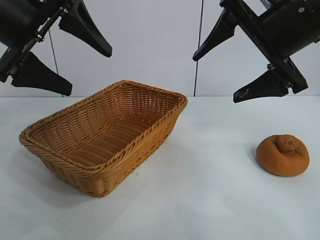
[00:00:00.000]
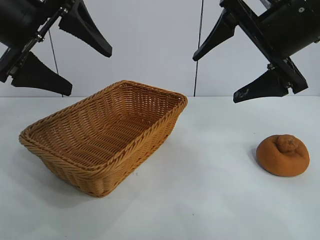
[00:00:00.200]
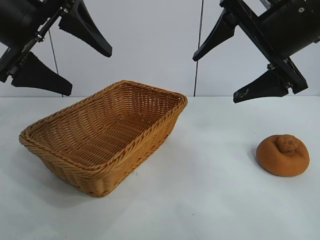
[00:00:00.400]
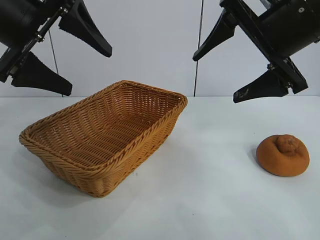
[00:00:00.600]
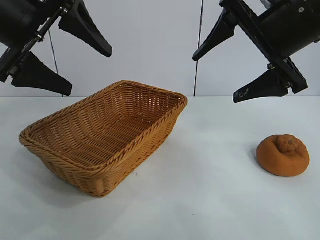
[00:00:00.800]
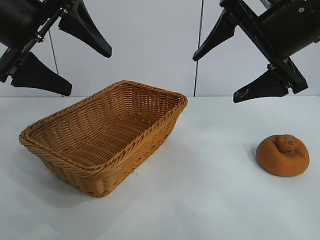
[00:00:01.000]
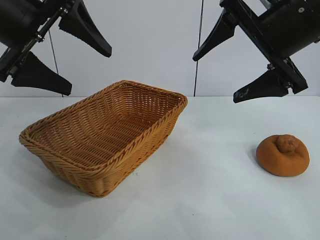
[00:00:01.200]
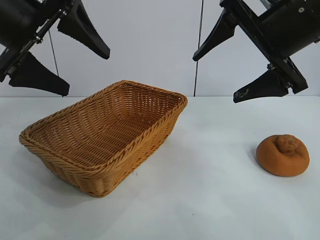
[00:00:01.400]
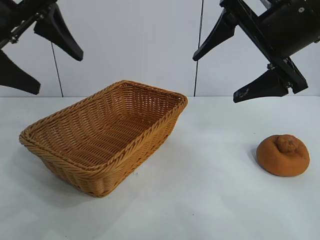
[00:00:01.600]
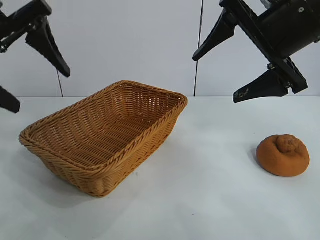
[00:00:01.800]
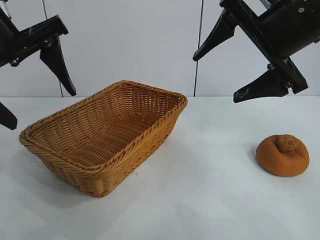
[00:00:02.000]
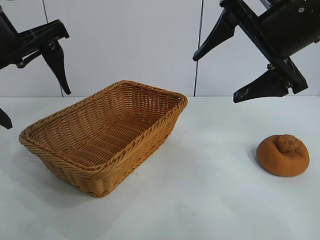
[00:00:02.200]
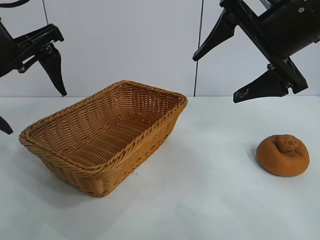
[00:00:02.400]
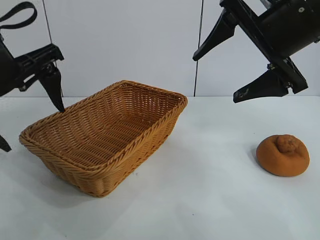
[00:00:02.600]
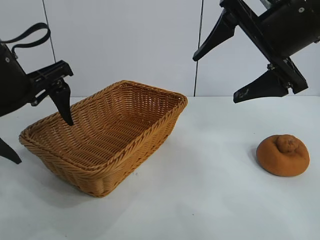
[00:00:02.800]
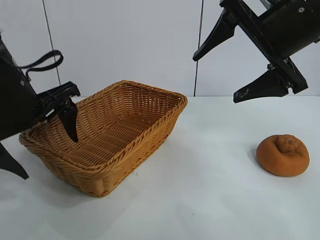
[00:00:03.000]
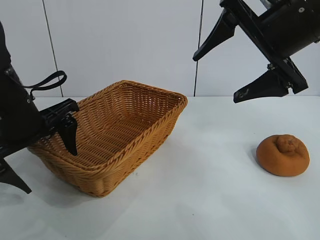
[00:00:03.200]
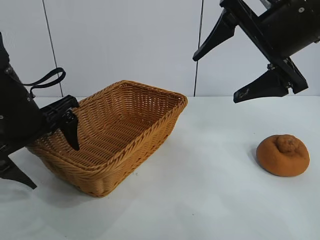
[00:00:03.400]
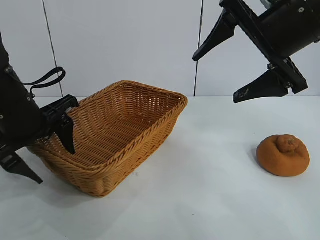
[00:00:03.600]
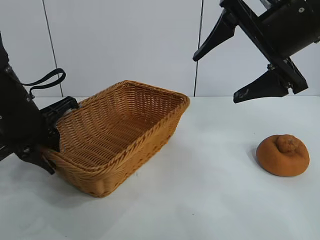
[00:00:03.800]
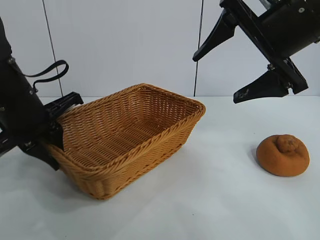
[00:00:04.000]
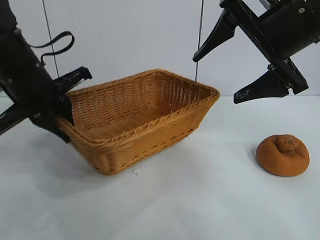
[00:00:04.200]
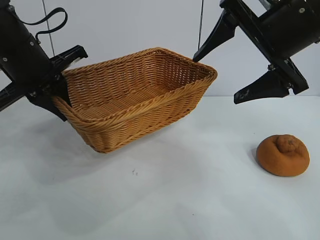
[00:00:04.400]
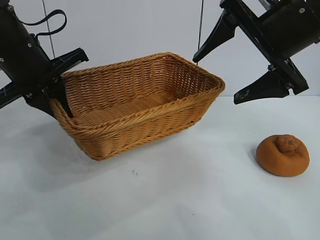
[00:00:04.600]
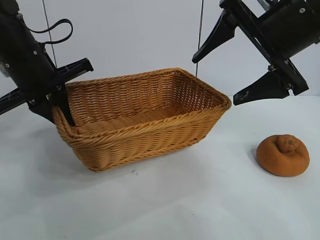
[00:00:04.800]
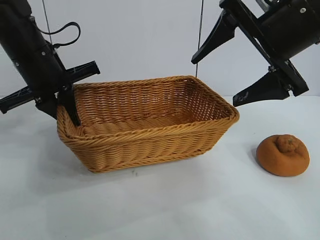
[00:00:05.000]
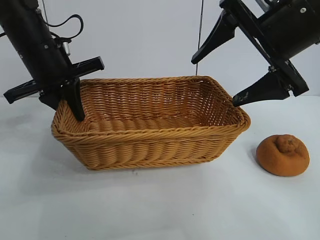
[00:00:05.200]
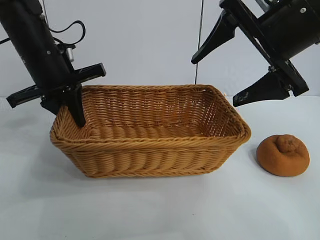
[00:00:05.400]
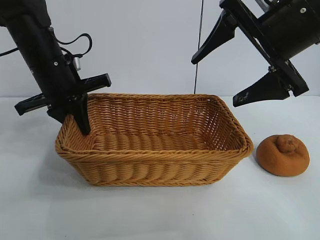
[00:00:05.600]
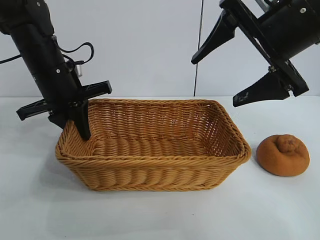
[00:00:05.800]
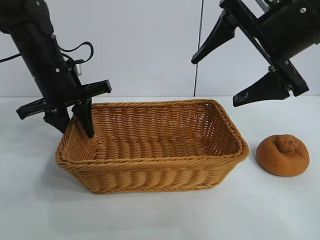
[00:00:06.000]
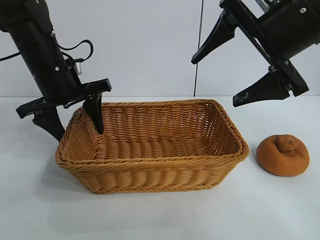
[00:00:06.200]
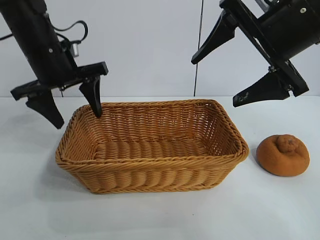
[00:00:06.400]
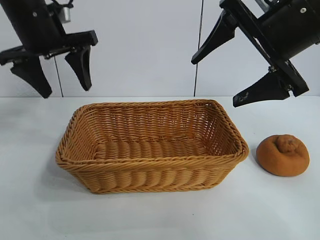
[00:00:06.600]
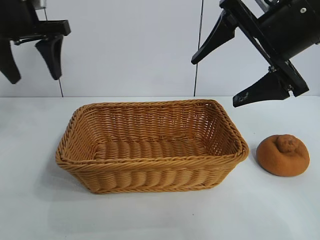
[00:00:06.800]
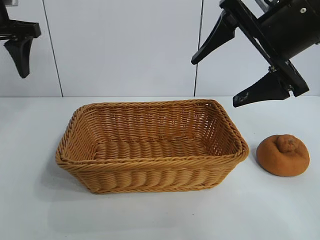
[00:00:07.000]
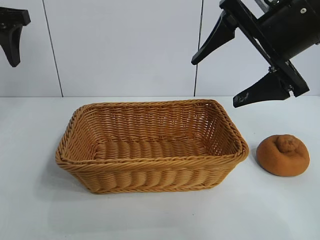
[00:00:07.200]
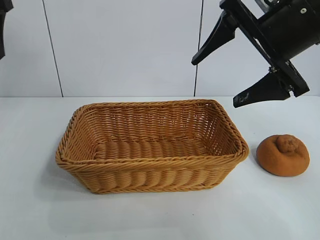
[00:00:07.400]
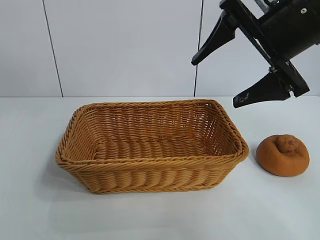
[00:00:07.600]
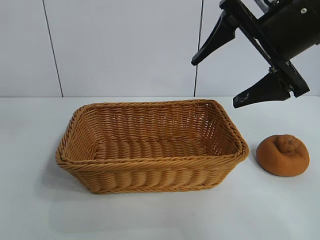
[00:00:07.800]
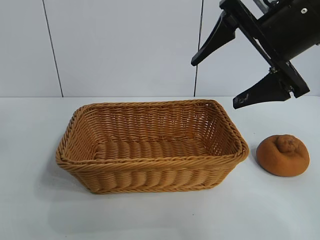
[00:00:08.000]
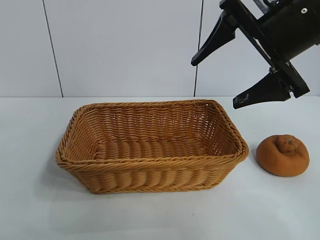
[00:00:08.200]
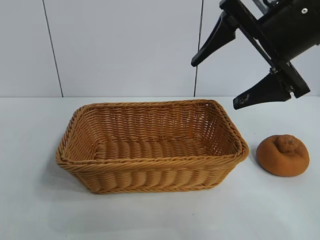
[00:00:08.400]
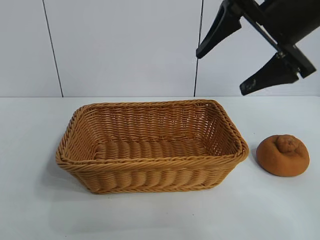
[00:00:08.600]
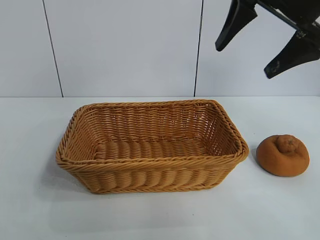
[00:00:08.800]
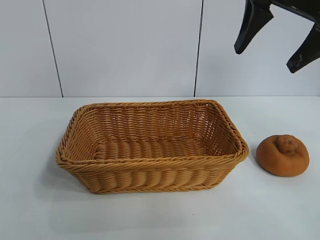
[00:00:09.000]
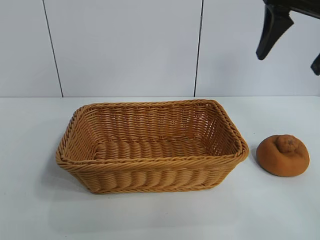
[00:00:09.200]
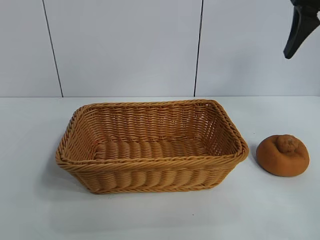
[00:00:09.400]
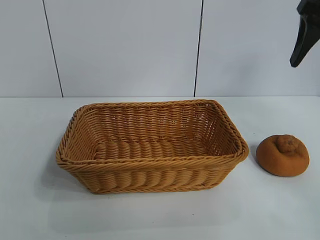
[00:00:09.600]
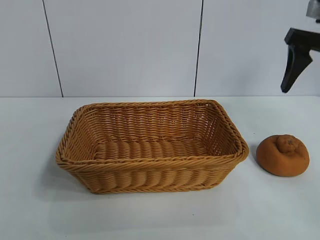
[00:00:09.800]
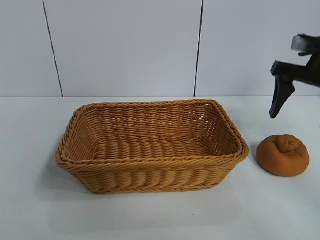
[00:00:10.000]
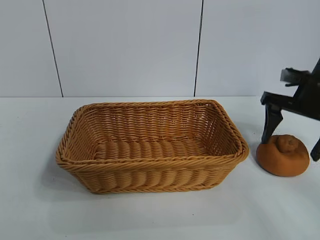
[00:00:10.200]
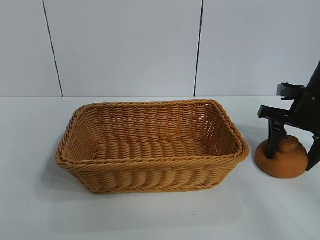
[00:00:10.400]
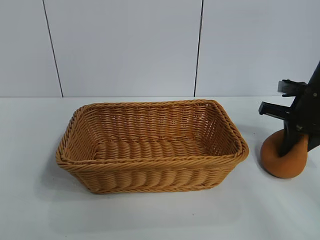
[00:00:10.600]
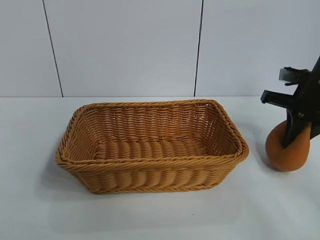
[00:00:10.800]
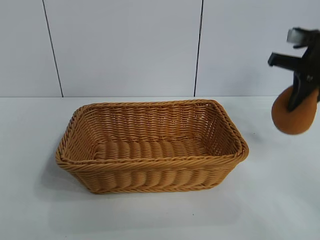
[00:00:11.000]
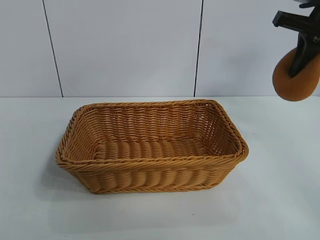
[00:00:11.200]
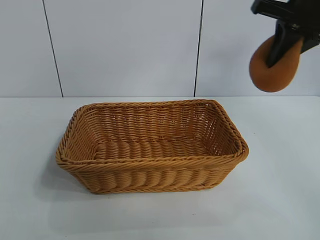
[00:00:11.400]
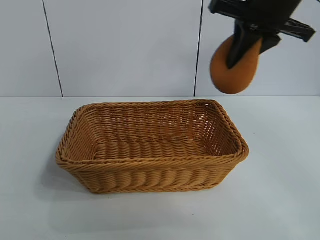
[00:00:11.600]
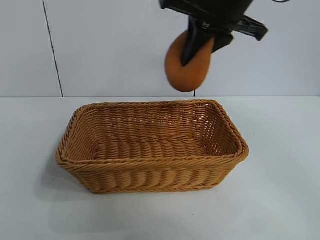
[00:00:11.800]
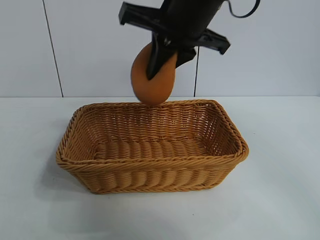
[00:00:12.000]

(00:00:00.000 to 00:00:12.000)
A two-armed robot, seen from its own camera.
Task of the whole recording: pick up the orange and put it into the basket.
Step, 00:00:01.200 - 00:00:03.800: Grasp the basket with left gripper.
Step, 00:00:04.000 - 00:00:06.200: Place the basket in the center of view with left gripper.
Step, 00:00:06.400 - 00:00:10.600: Grasp the orange with right gripper.

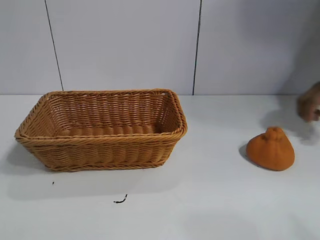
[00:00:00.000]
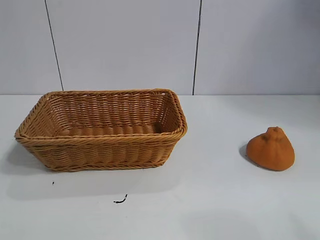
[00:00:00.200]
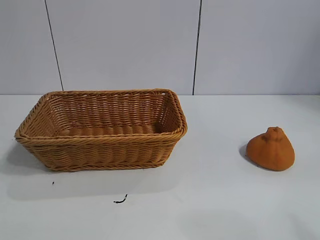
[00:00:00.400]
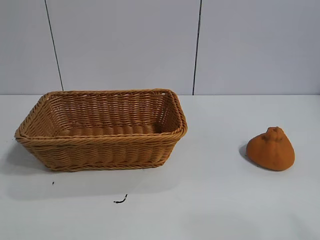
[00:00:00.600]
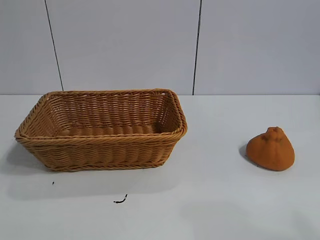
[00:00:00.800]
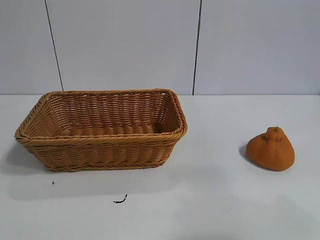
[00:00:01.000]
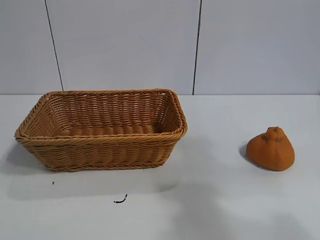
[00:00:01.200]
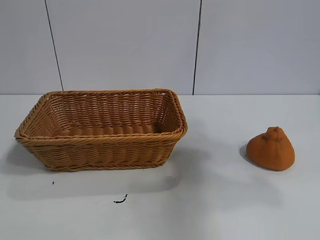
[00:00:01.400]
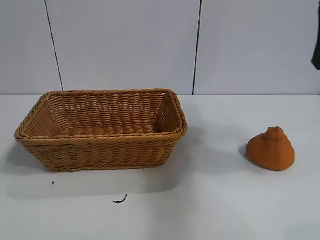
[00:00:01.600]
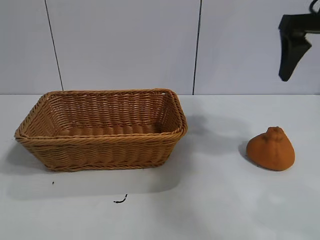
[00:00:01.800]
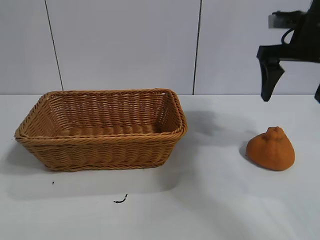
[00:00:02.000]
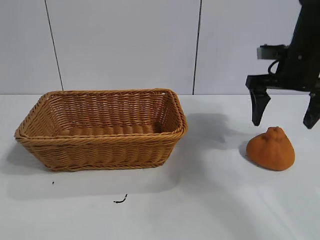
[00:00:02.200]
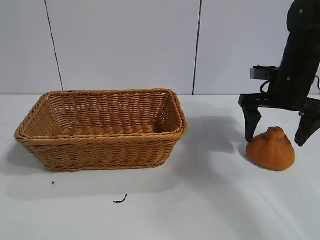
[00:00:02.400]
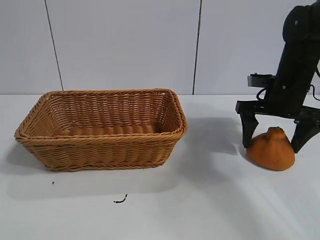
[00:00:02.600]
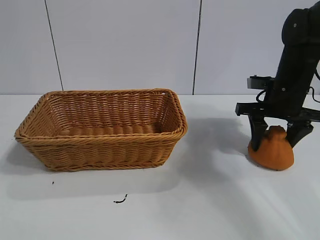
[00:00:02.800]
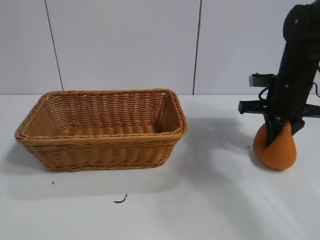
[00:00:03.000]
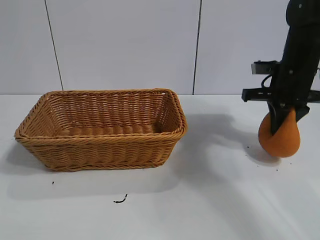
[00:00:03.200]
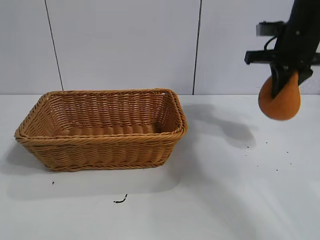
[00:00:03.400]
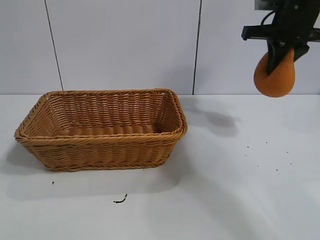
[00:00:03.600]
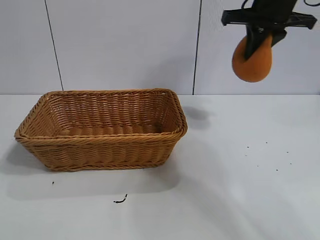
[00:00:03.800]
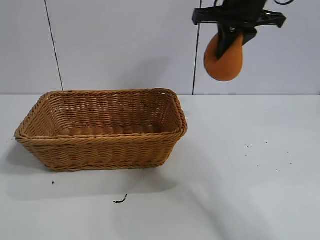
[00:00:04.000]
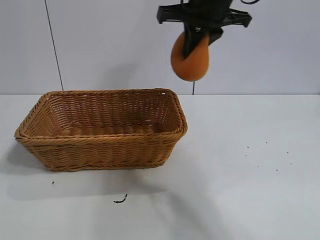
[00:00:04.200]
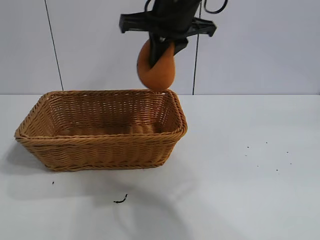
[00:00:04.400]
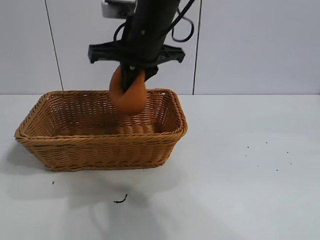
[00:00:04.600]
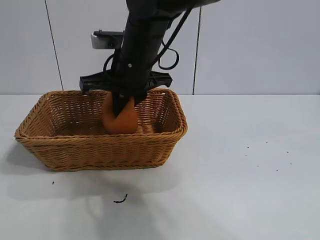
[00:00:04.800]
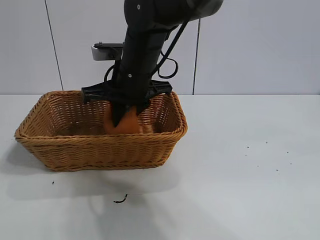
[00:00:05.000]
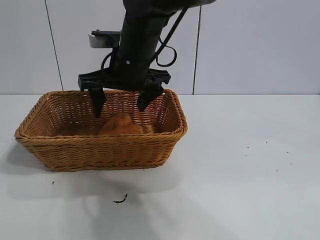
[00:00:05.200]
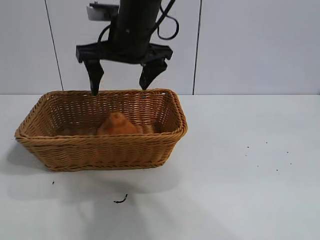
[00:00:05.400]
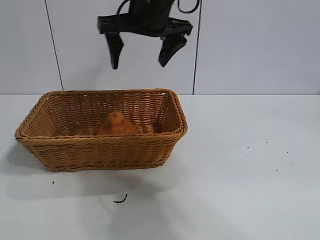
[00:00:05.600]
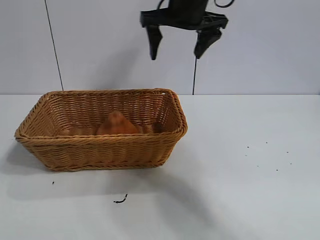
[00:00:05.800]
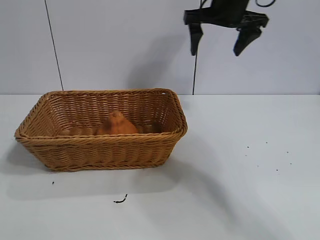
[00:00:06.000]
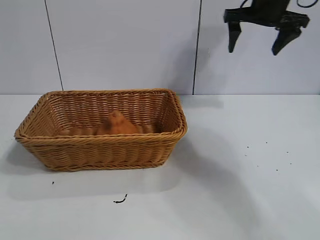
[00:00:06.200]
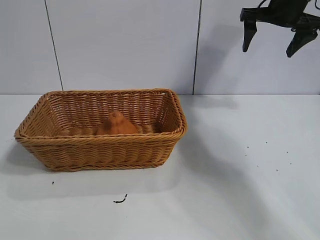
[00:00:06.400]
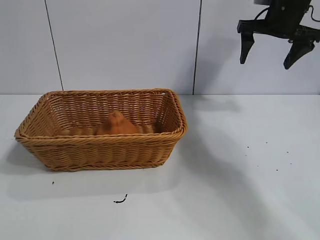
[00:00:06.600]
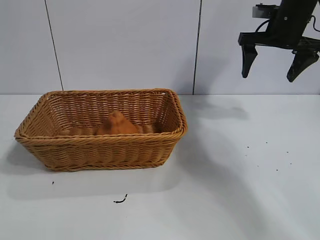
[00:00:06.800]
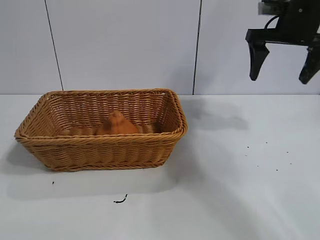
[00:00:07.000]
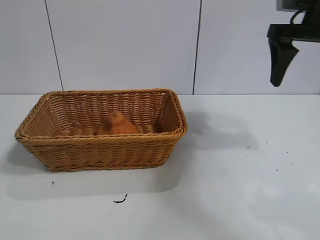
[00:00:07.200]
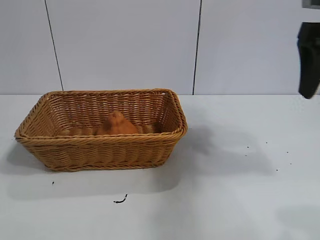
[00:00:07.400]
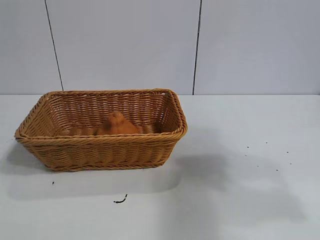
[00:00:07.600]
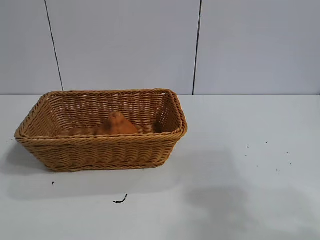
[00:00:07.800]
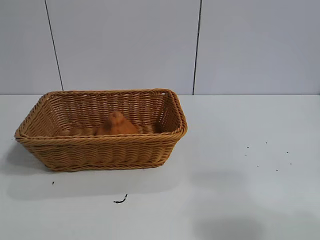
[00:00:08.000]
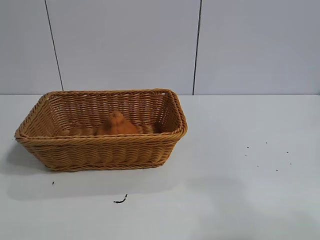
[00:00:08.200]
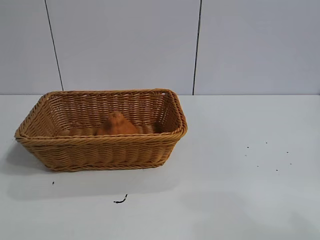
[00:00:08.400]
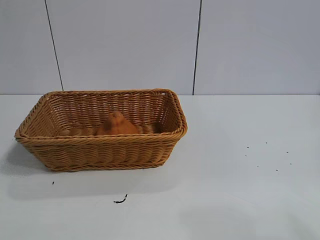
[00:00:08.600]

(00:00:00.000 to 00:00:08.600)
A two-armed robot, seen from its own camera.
Task of the whole recording: pick up the orange and put it into the basket.
Step, 00:00:00.600 - 00:00:02.800: Grasp the orange with right gripper.
Step, 00:00:03.000 - 00:00:05.200: Place the orange in the basket with right gripper.
